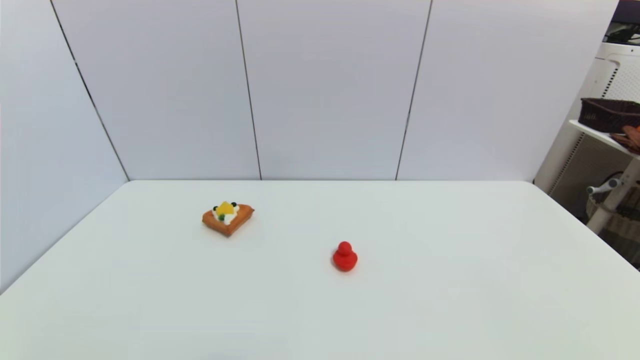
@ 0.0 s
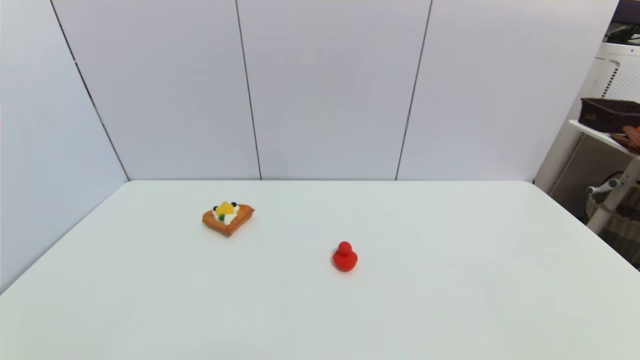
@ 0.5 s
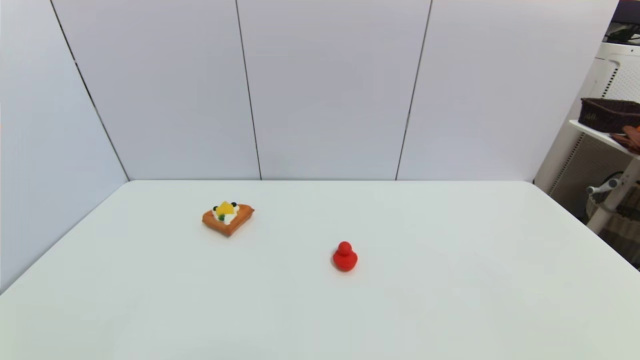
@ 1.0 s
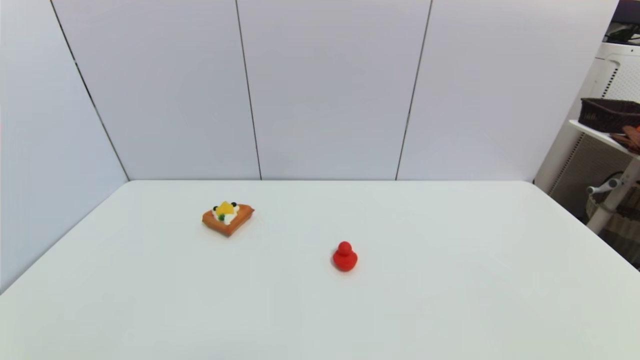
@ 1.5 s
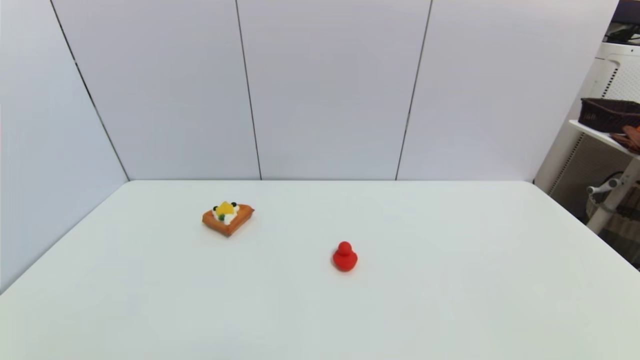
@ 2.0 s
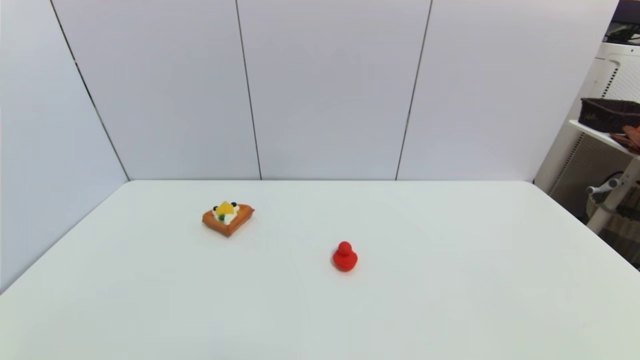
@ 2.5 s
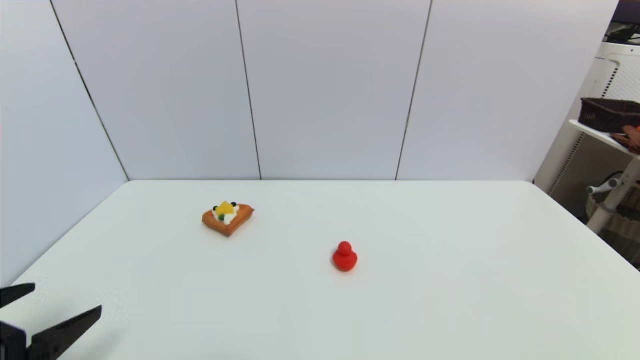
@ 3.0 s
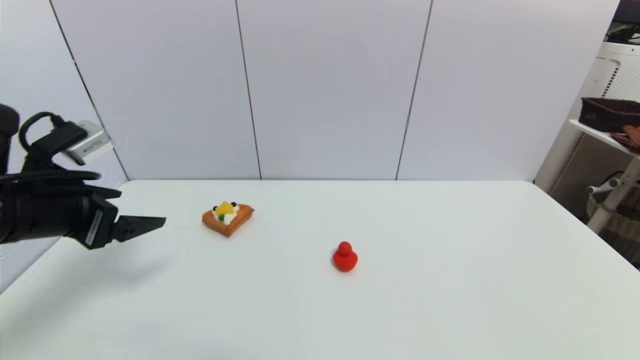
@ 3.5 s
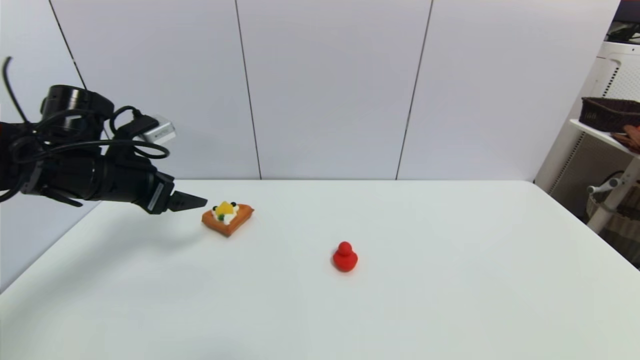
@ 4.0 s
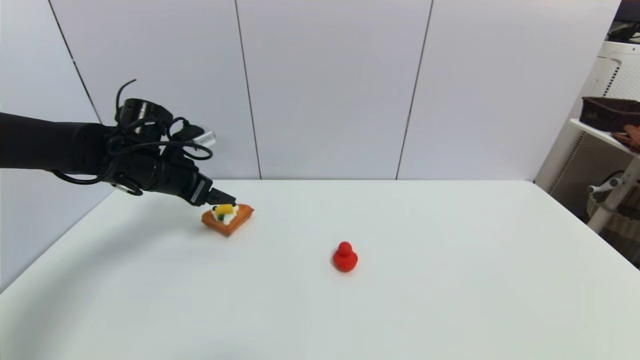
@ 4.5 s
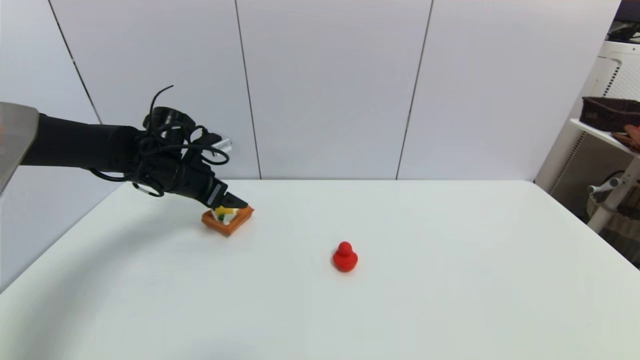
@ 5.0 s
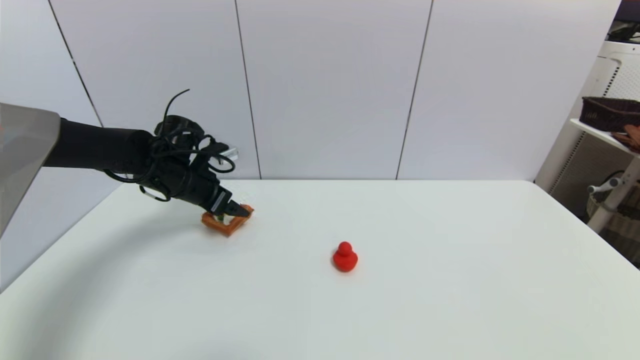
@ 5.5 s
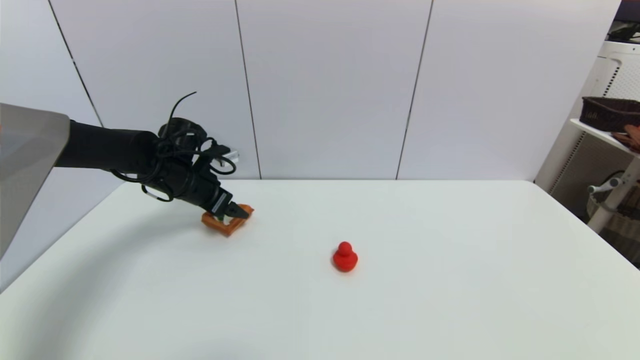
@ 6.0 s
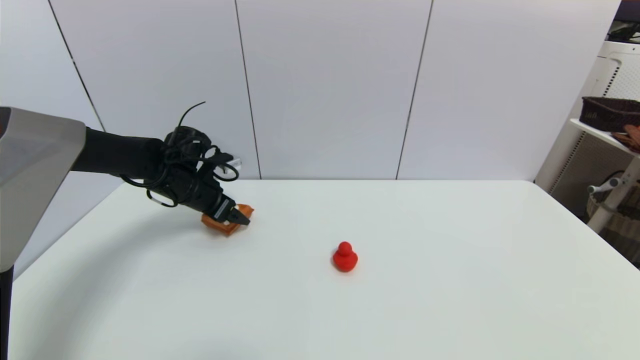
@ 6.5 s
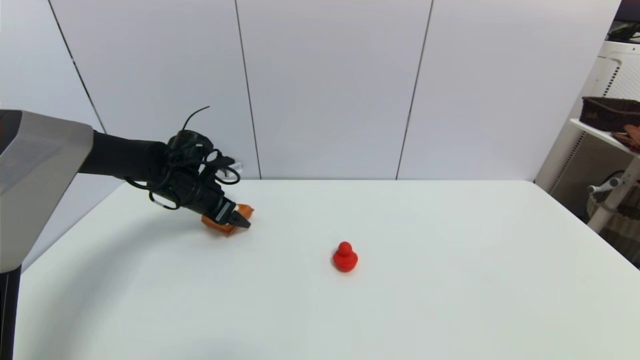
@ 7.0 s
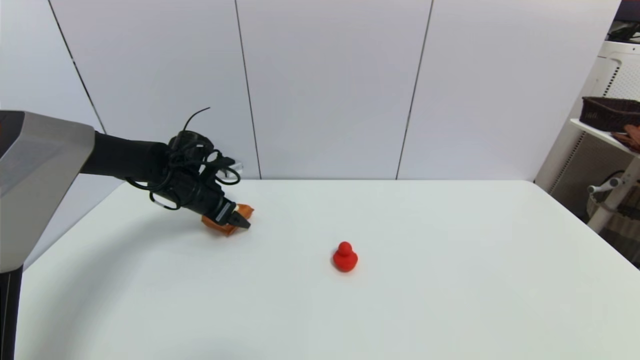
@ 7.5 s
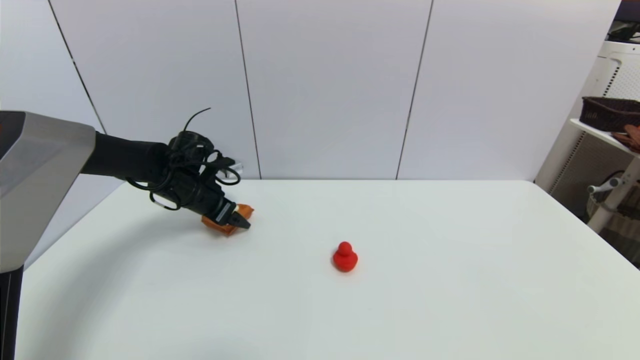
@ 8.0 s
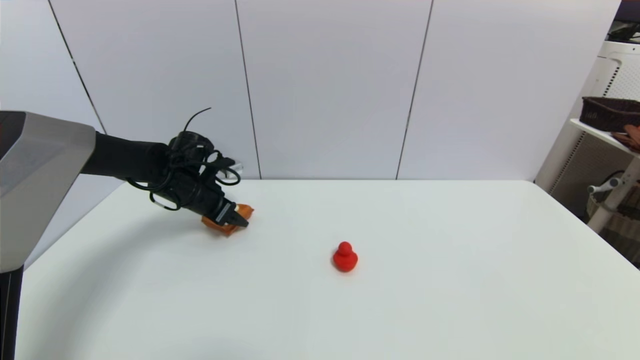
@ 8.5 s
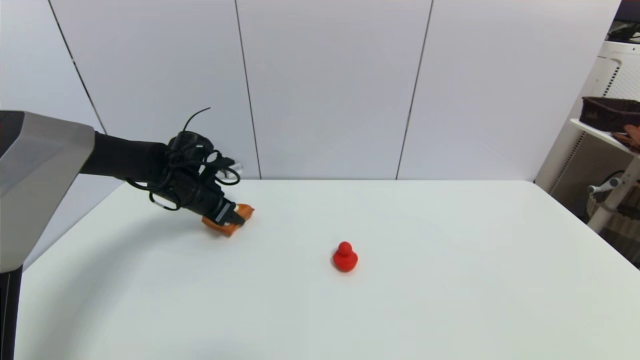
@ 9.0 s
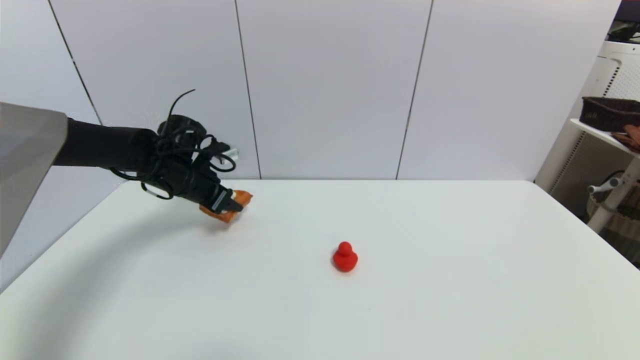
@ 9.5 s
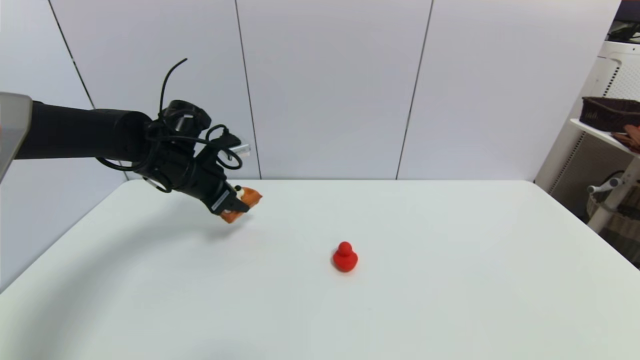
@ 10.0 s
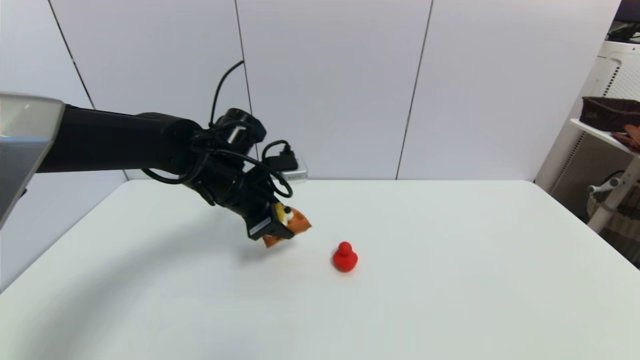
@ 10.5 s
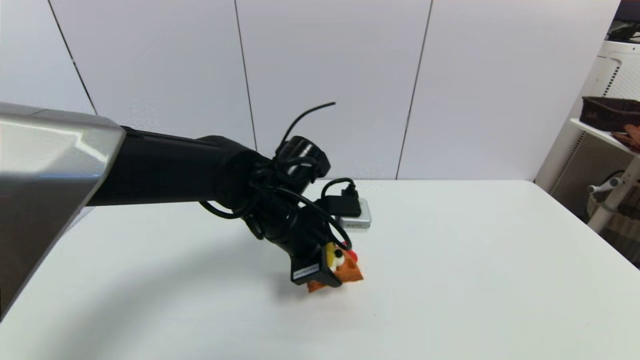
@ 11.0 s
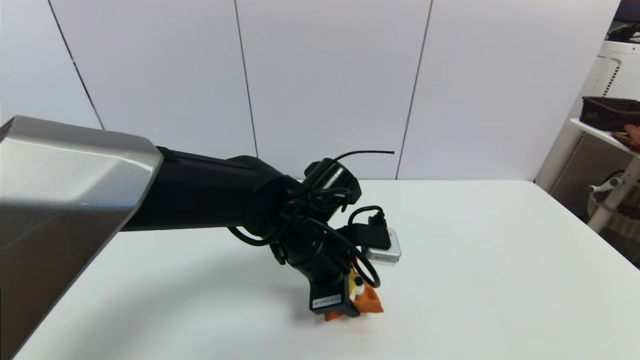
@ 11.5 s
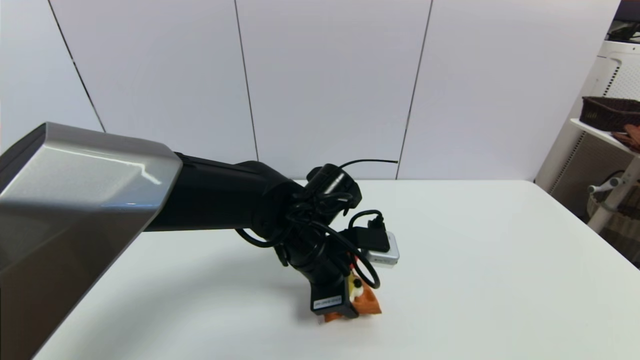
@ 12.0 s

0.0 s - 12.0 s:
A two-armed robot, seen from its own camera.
Step, 3.0 s - 9.0 s: Grasp the pizza with left gripper.
0.0 s - 2.0 s: Both grippers stay about where they are.
2.0 s - 4.0 s: The left gripper travels forward and upward by approximately 35 cm.
4.0 s - 6.0 s: The left gripper is displaced forward and downward by about 10 cm.
6.0 s - 8.0 s: The grippers stay close to where they were, moving slightly.
8.0 s - 10.0 s: The left gripper goes some 5 cm upward, and closes up.
10.0 s - 12.0 s: The left gripper heads to the right and backward, covering about 20 cm.

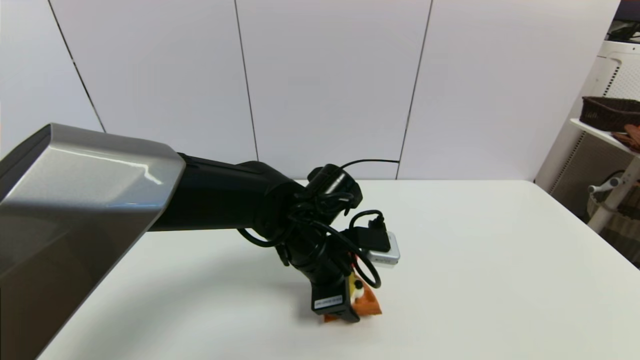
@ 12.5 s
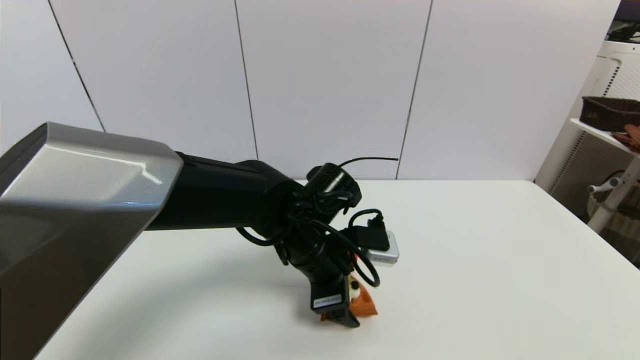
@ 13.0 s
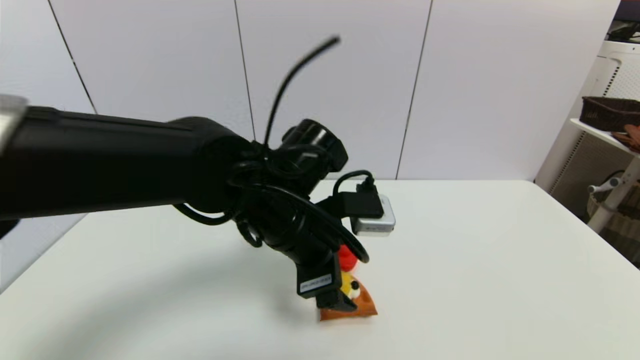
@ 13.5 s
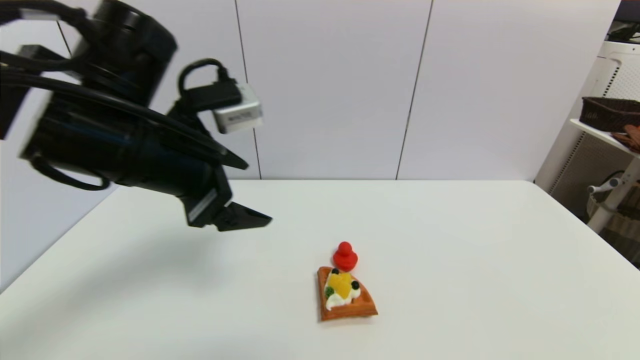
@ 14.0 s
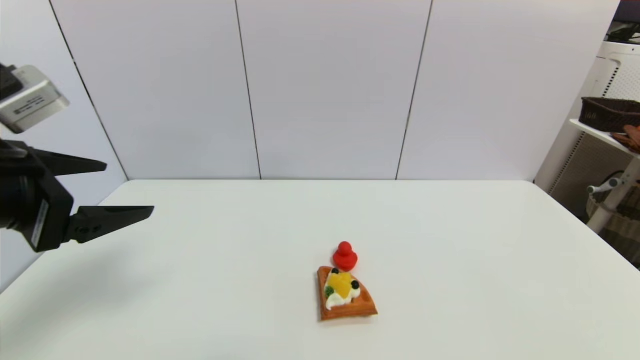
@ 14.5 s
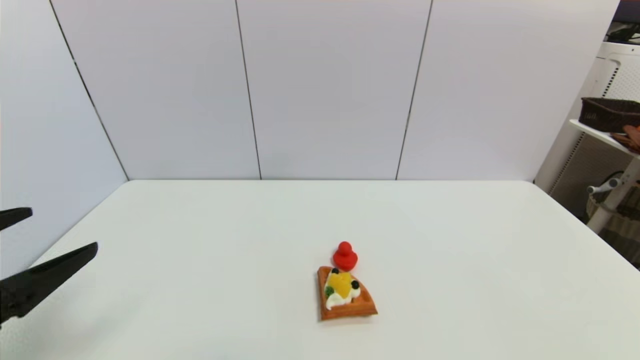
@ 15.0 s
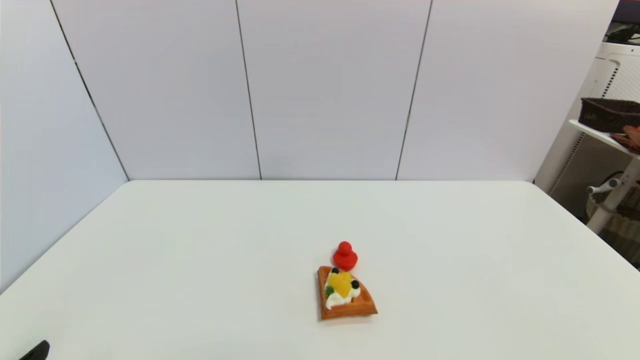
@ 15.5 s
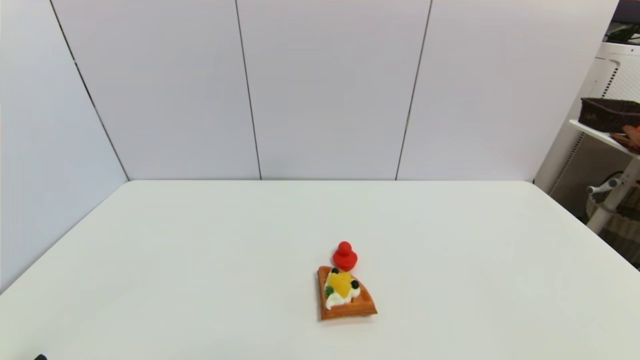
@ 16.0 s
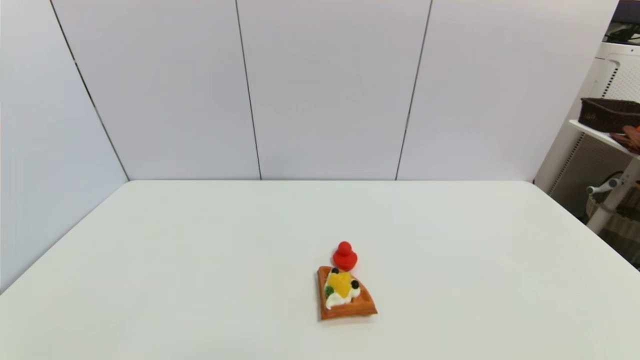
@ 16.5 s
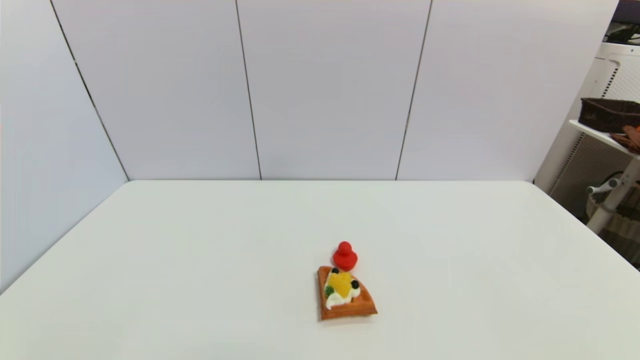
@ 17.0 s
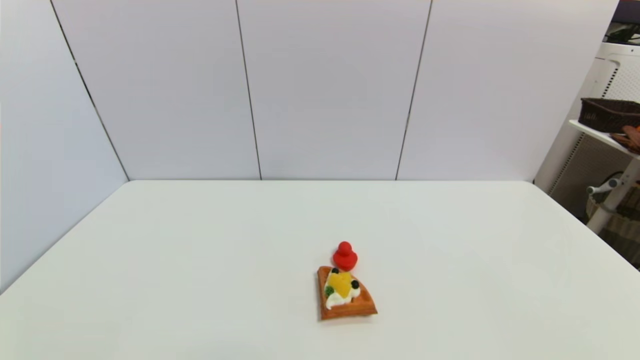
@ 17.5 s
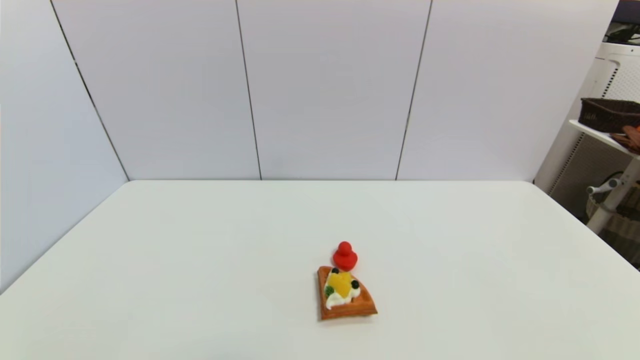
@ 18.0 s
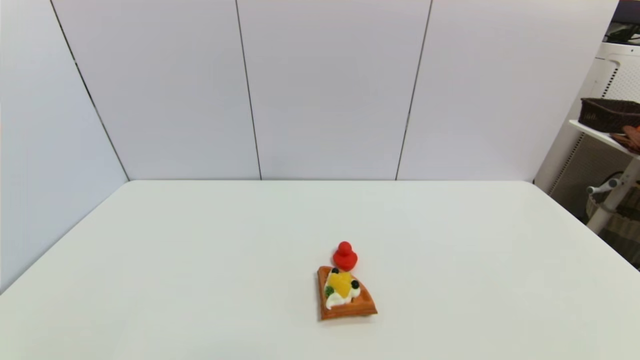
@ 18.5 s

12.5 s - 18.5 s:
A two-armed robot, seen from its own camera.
12.5 s - 14.5 s: The left gripper goes some 30 cm to the left, upward and backward, and opens up.
14.5 s - 16.5 s: The left gripper heads downward and backward, covering some 25 cm.
